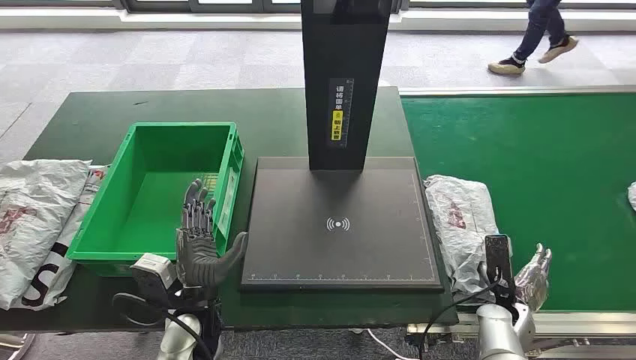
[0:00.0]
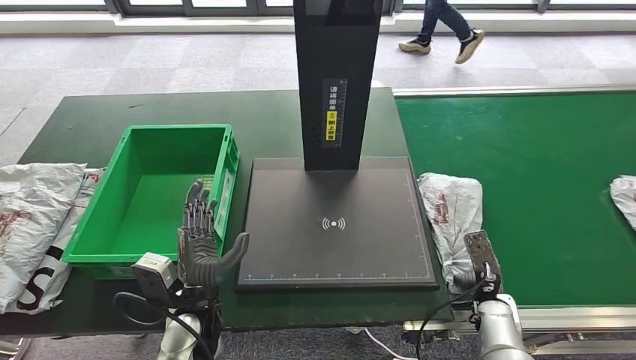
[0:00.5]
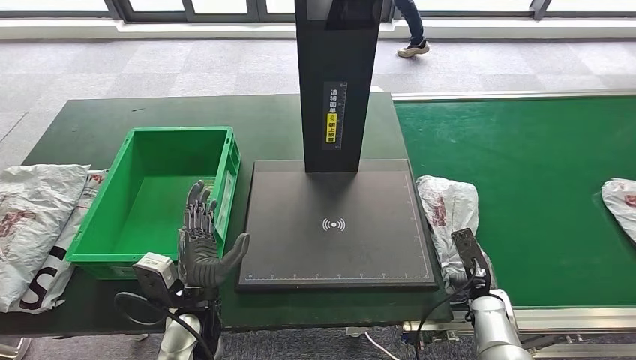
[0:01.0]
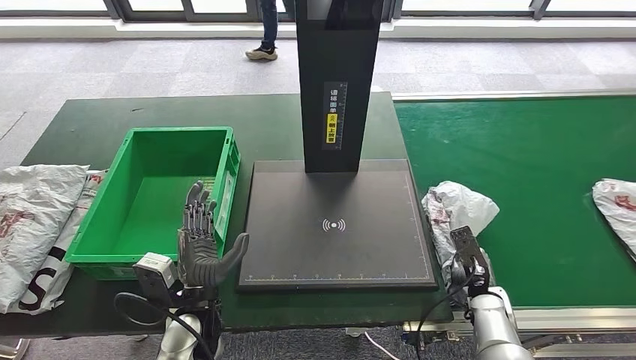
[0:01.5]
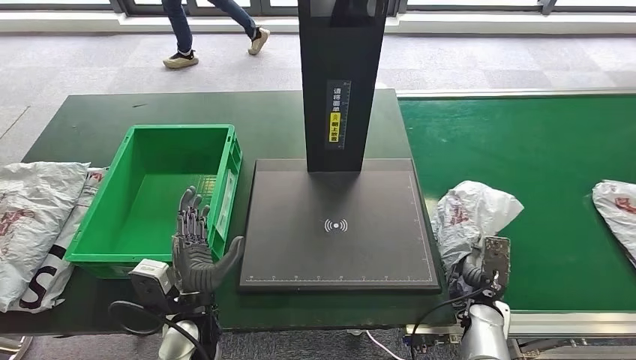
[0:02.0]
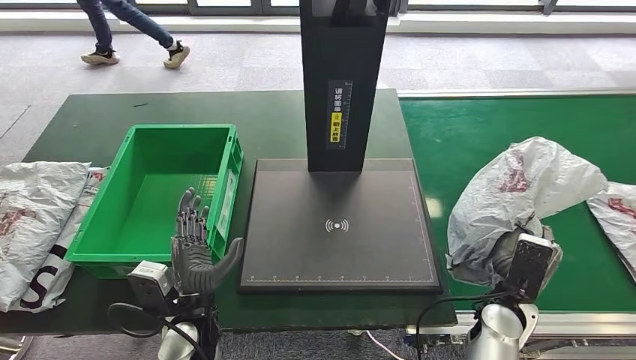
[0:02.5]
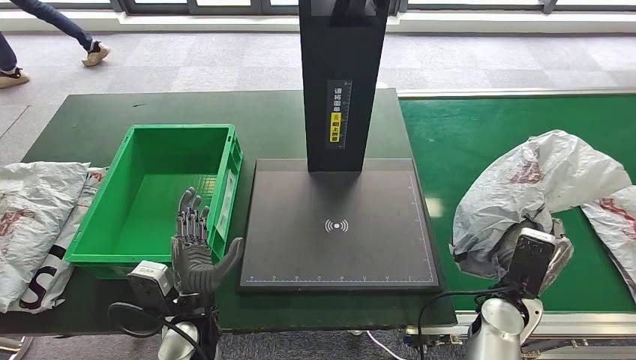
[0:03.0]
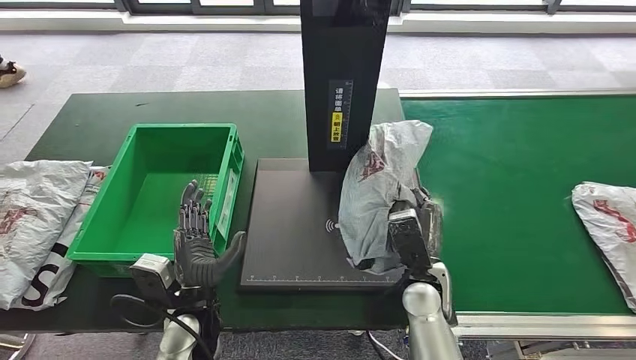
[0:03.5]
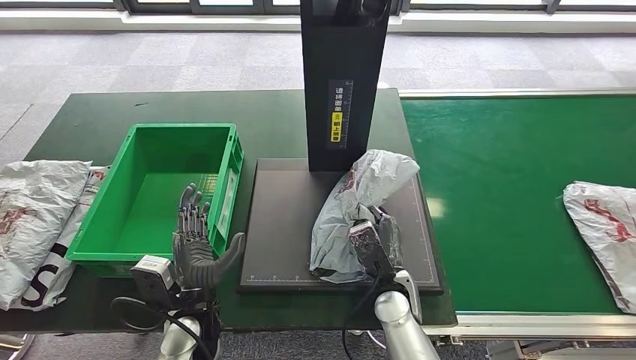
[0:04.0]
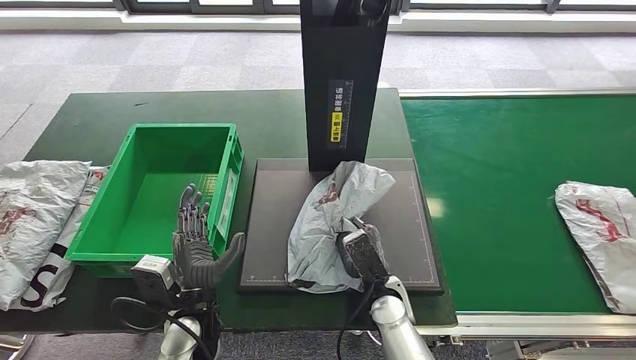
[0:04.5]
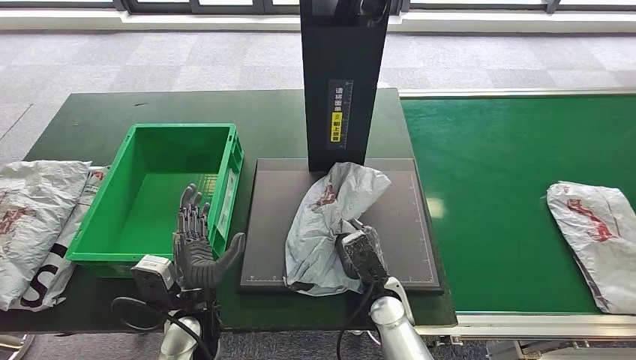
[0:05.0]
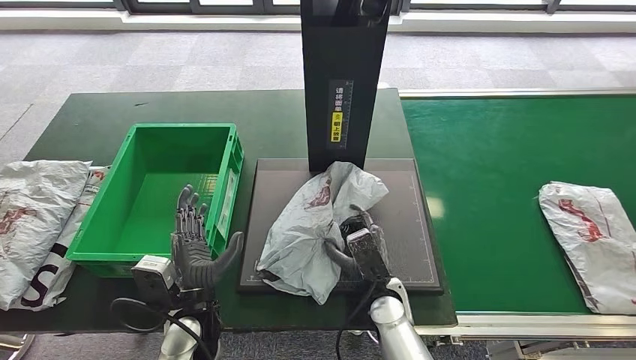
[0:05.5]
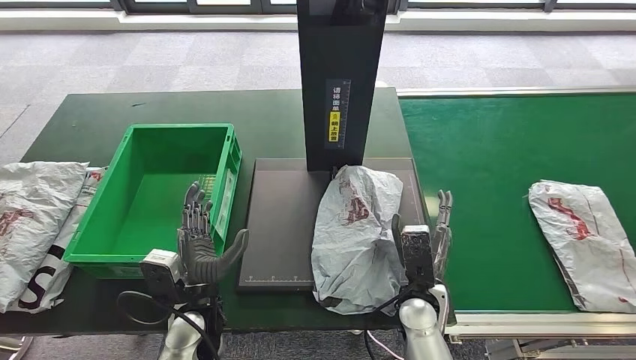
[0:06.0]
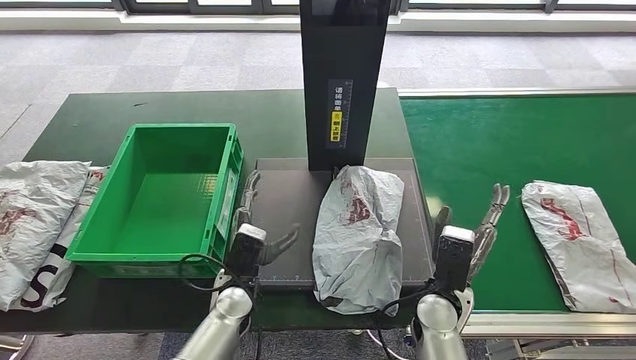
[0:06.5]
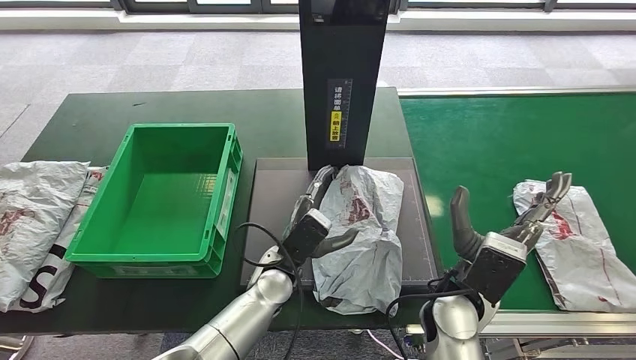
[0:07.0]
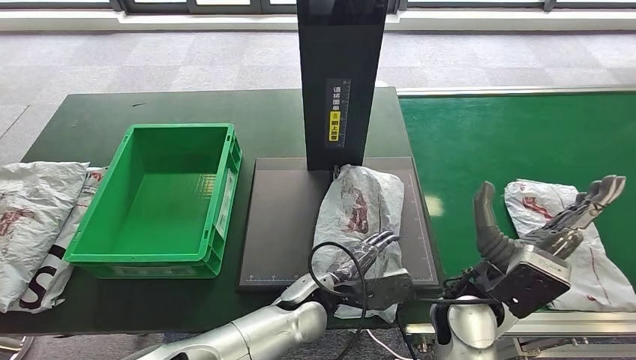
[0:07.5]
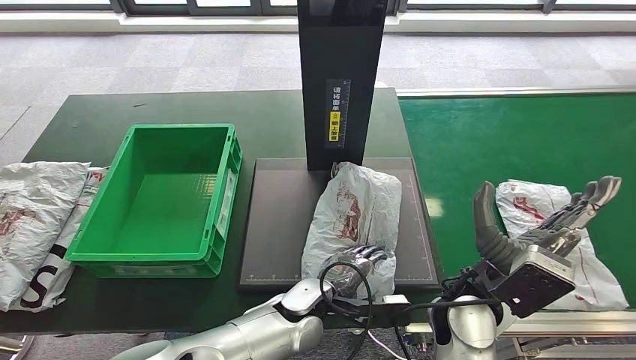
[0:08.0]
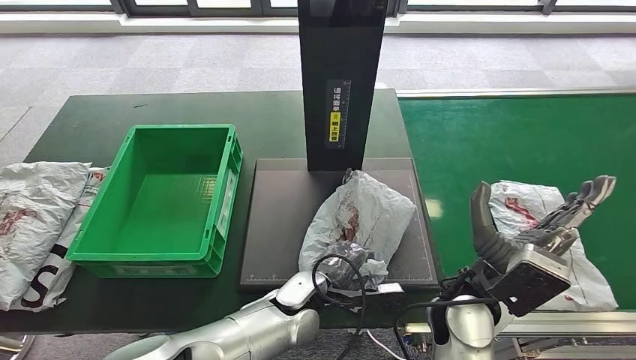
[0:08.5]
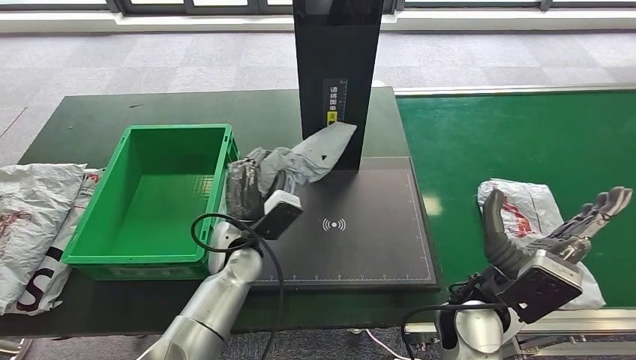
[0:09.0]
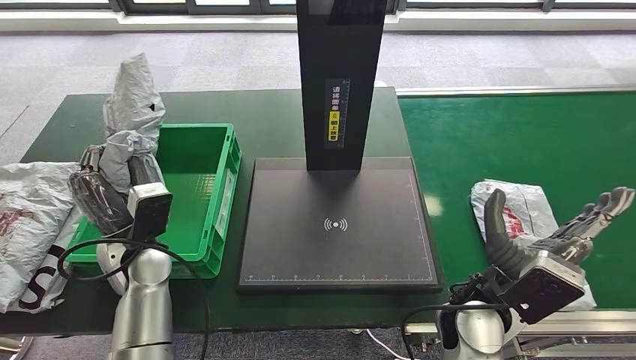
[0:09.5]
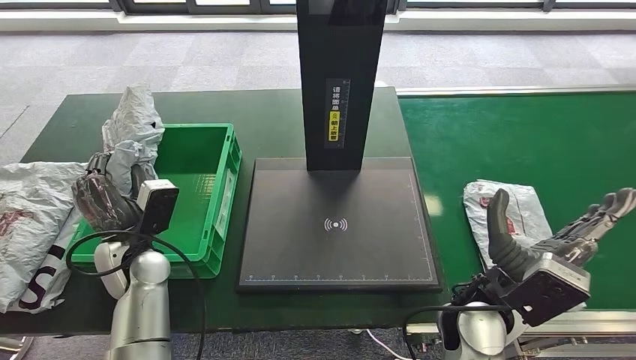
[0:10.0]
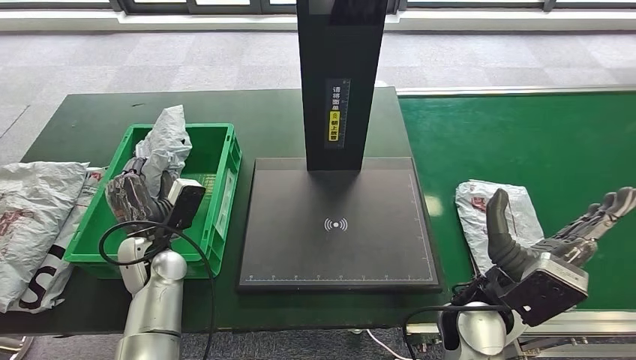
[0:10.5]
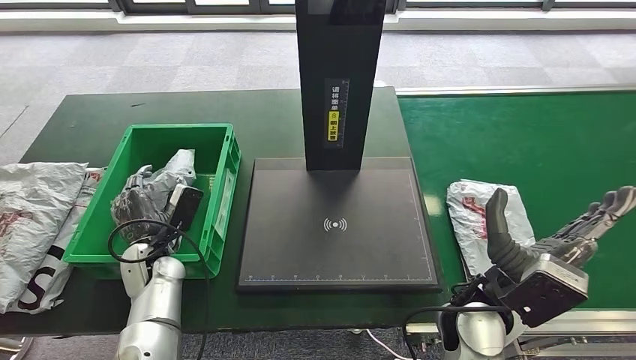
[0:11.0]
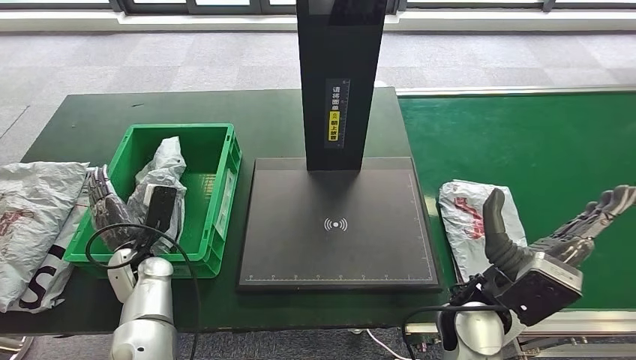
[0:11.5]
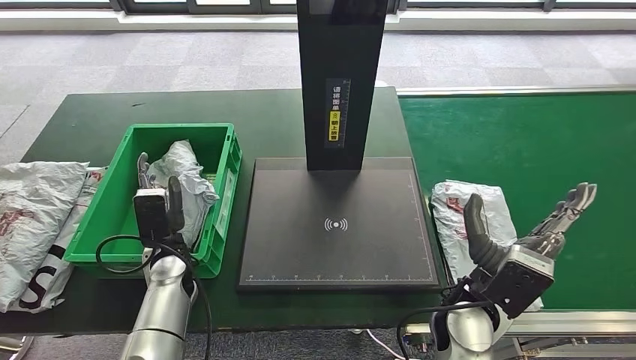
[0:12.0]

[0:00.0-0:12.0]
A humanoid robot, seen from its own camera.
Step, 0:00.0 to 0:03.0: Take the parcel off the conveyor belt.
Step, 0:03.5 to 0:05.5: Place the parcel onto the inbound machine.
Step, 0:06.0 to 0:09.5: Pick up the parcel from the inbound machine.
0:10.0 to 0:12.0: The left hand moves downward, about 5 cm.

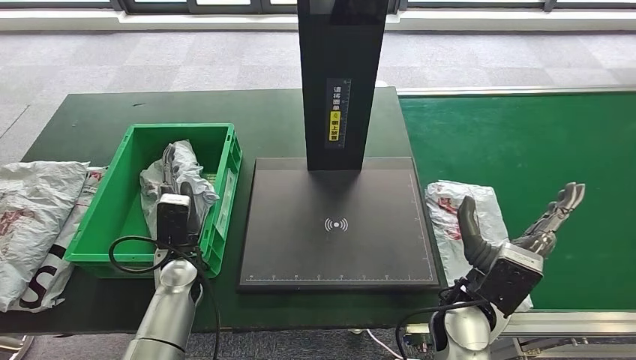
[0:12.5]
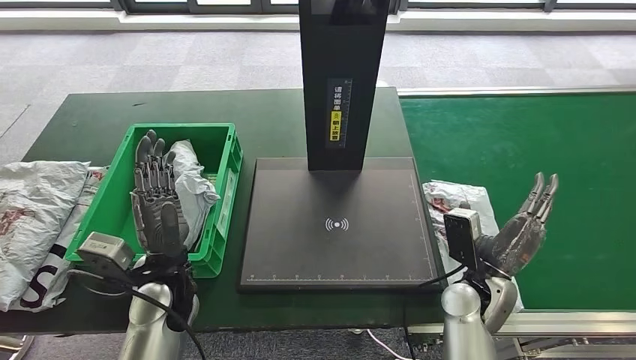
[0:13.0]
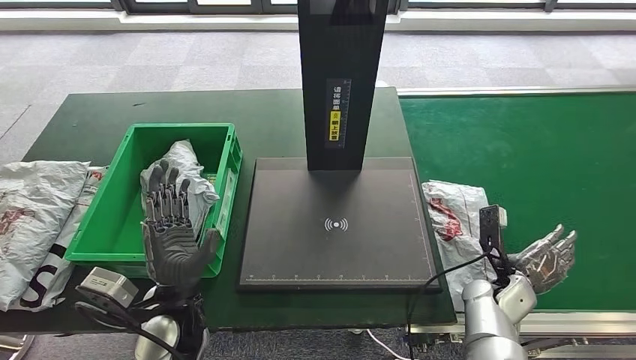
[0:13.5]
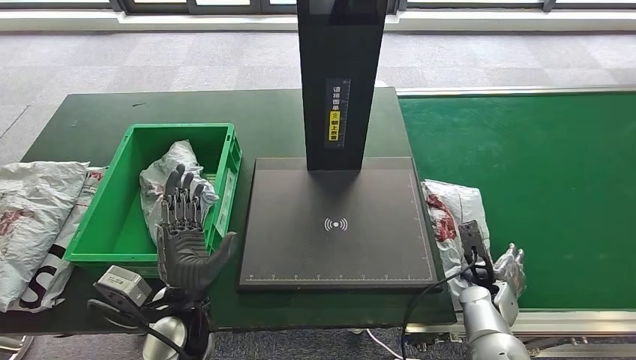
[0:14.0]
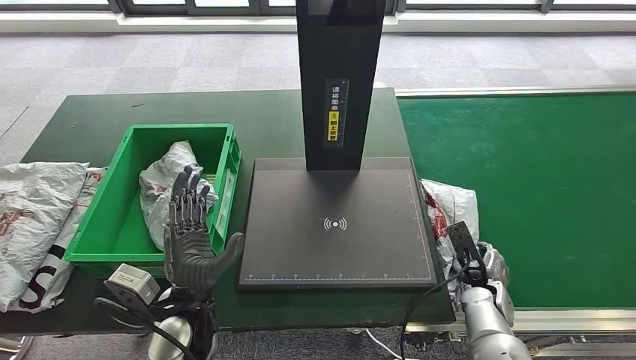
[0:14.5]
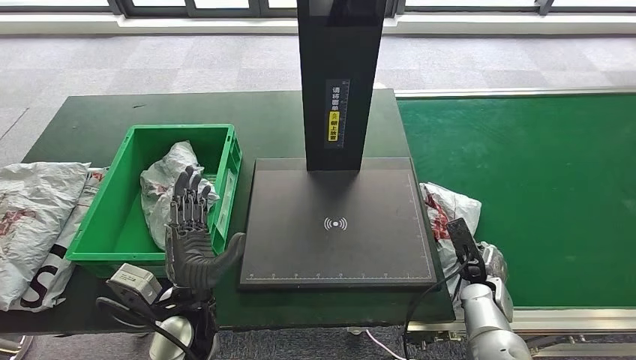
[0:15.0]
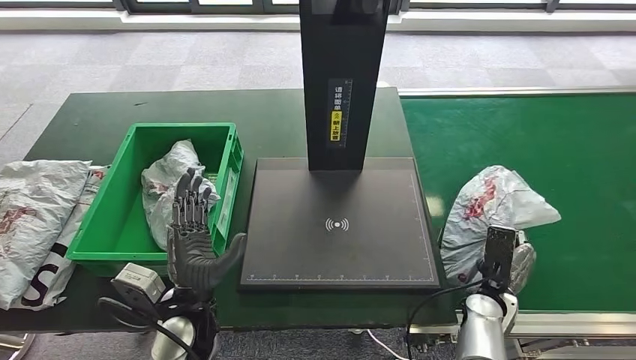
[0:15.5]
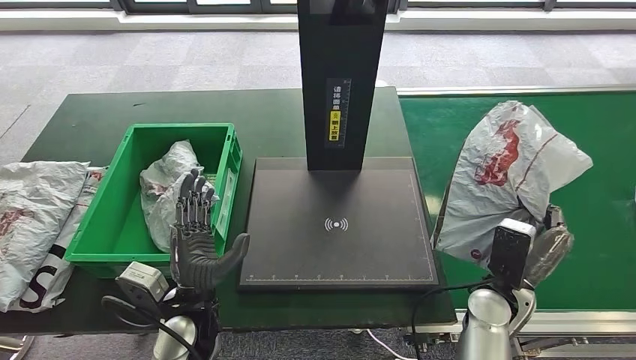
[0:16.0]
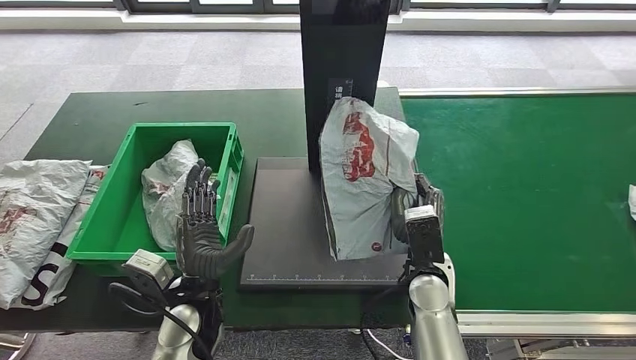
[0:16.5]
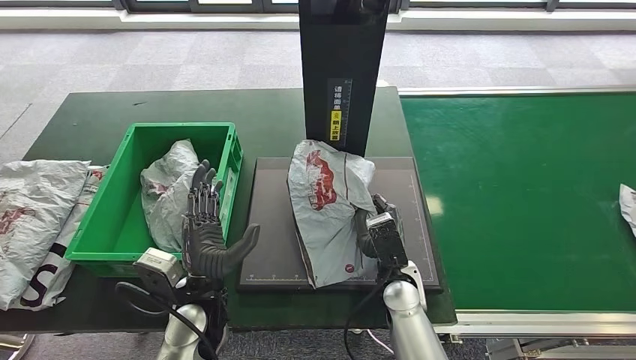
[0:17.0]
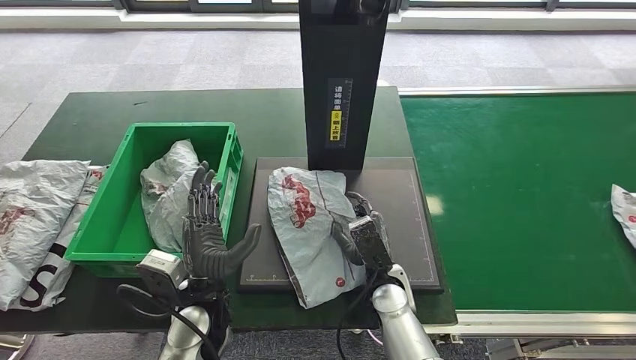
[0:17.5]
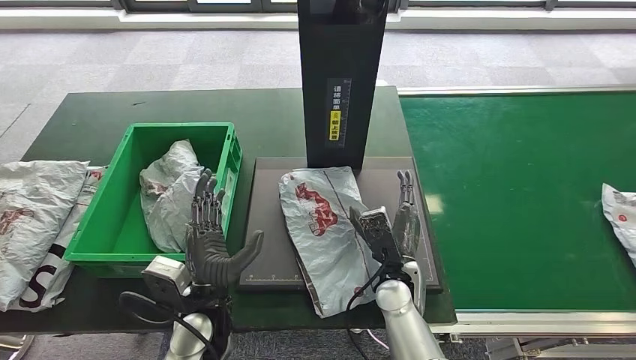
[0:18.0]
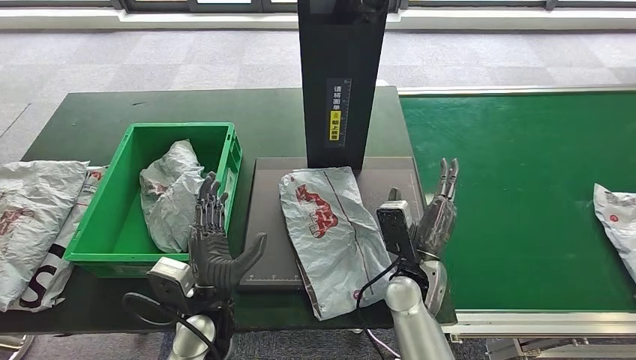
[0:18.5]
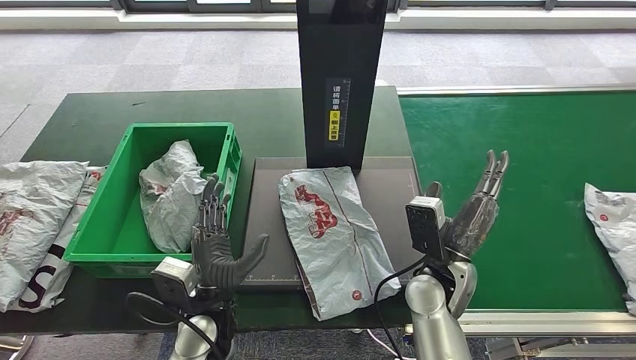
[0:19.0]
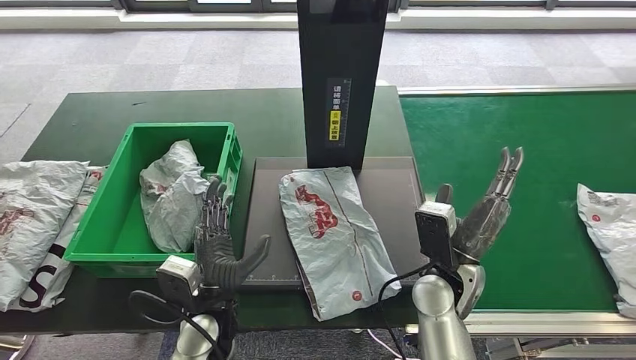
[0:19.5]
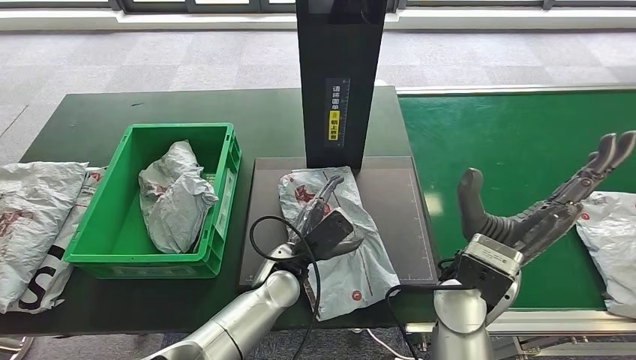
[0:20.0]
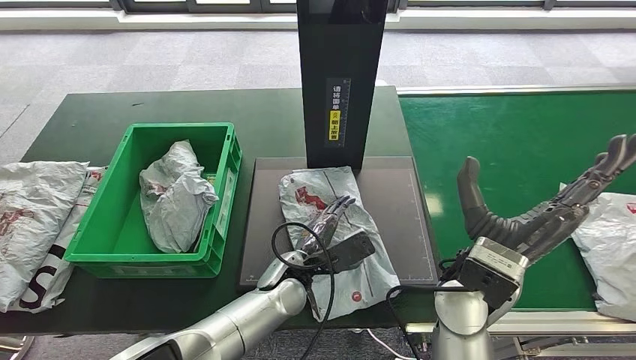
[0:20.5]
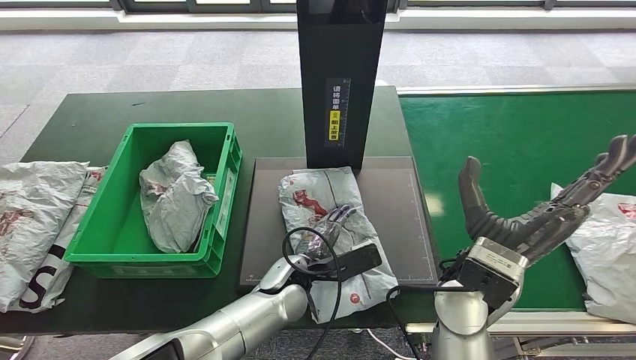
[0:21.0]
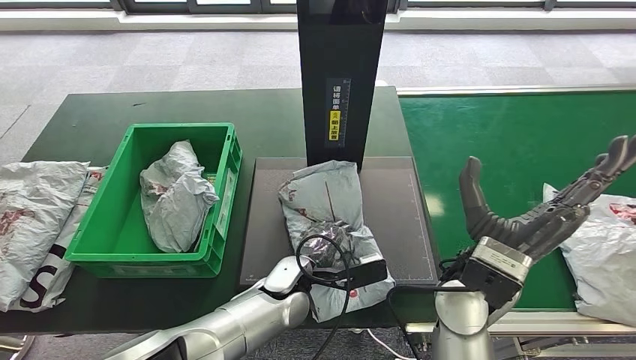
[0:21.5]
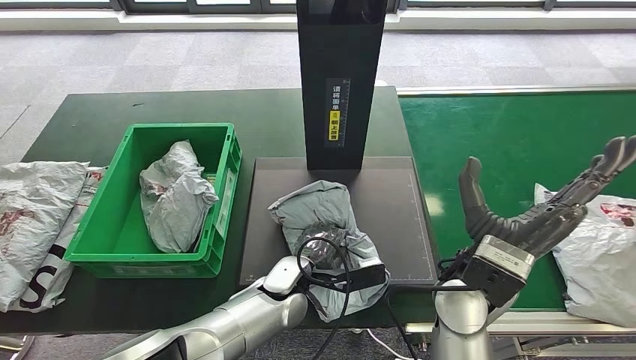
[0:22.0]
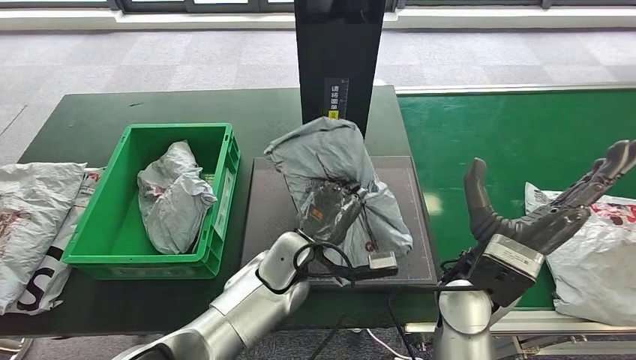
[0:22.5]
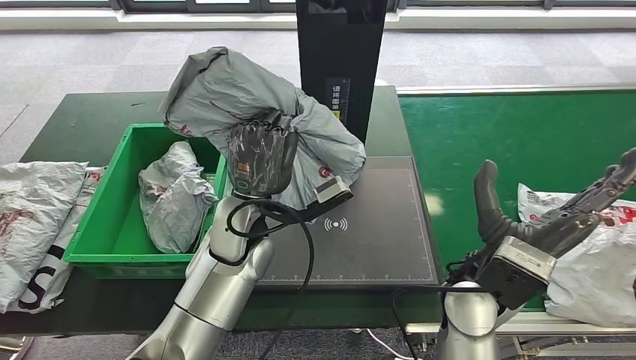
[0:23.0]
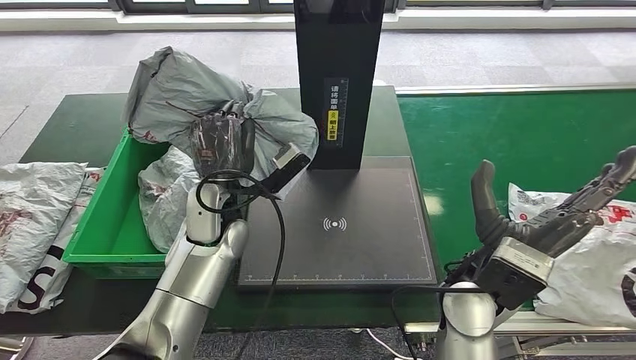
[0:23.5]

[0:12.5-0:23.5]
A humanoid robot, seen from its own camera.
Step, 0:15.0 to 0:16.0: Pick up the parcel from the conveyor belt.
Step, 0:16.5 to 0:18.5: Place the parcel onto the inbound machine.
0:12.5 to 0:14.5: The left hand shifts approximately 10 cm backward. The right hand travels downward and to the right by some 20 cm.
